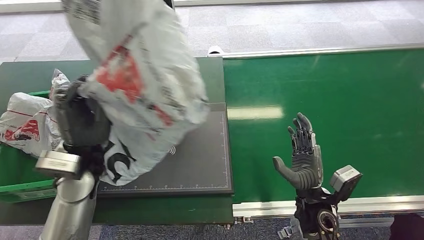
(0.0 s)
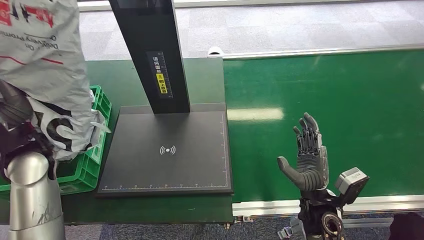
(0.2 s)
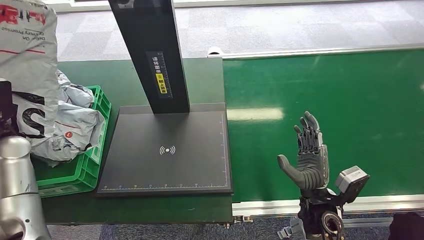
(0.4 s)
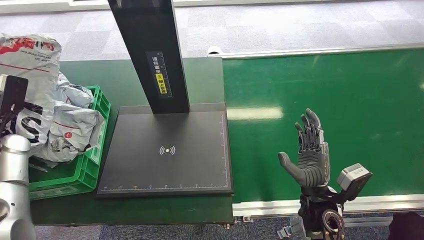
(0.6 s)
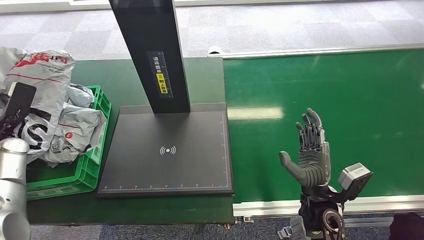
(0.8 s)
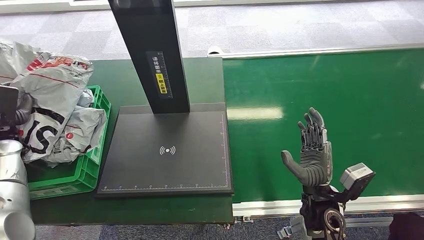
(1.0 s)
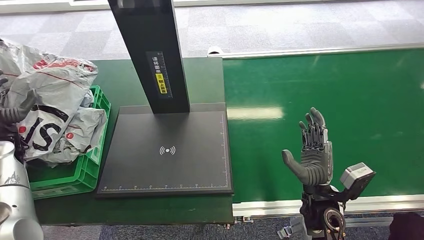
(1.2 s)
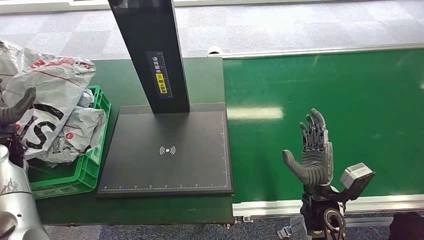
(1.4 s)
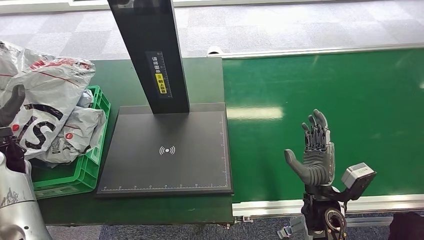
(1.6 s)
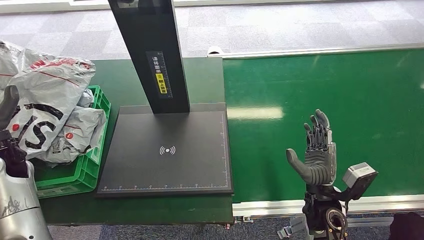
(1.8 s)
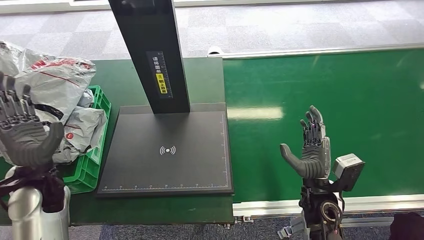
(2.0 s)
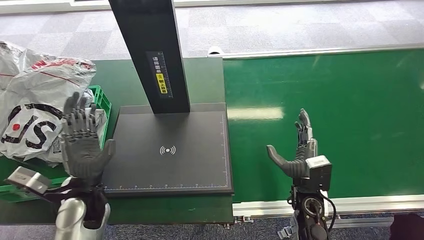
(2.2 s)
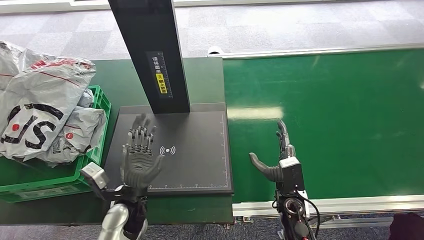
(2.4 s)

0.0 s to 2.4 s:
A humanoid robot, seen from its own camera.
Task of the whole recording: Weigh the package on the weighing device and place it in the left basket.
Step, 0.6 to 2.4 s: Place the package into the parcel locker.
1.2 to 2.4 s: The left hand shifts about 35 cm to the right. Meanwhile the right hand shifts roughly 5 cm downward.

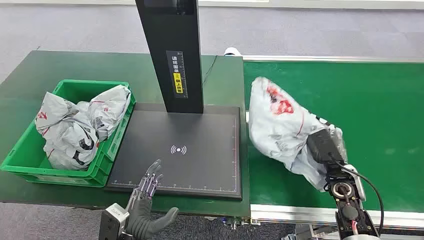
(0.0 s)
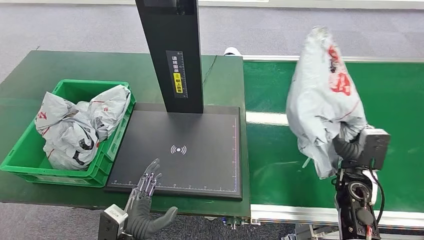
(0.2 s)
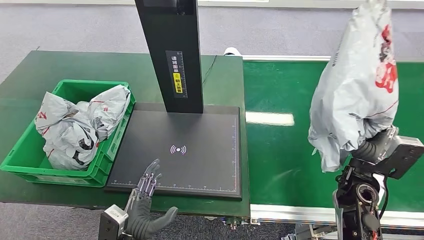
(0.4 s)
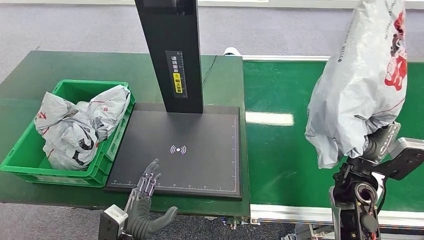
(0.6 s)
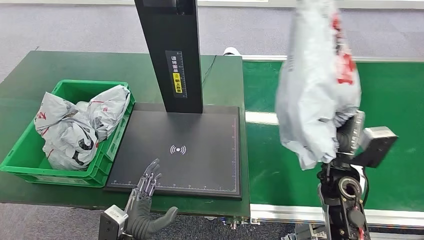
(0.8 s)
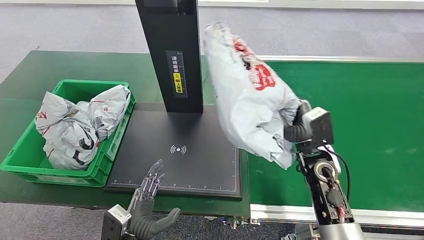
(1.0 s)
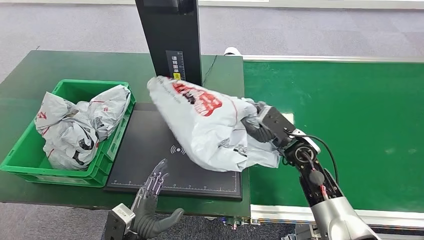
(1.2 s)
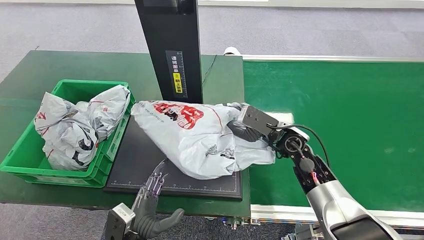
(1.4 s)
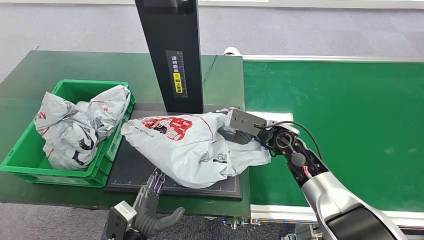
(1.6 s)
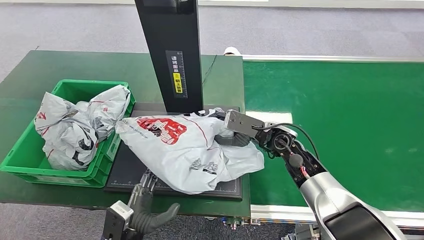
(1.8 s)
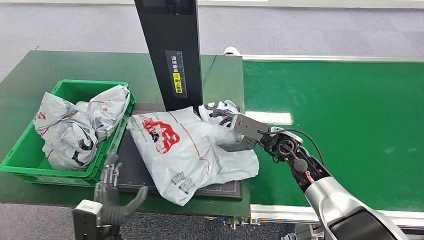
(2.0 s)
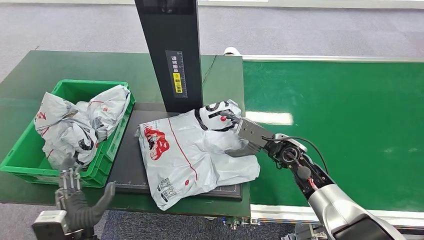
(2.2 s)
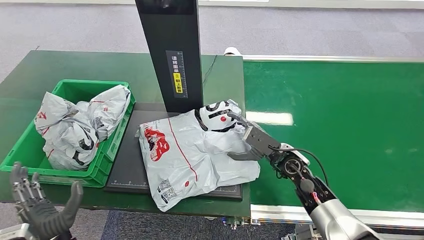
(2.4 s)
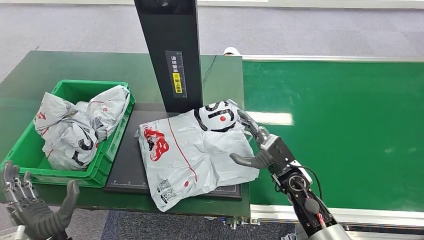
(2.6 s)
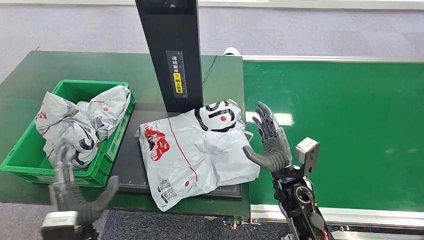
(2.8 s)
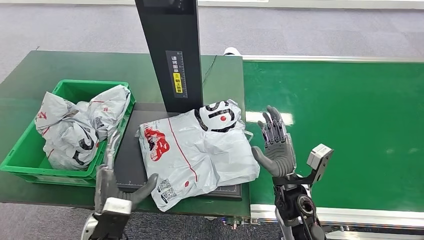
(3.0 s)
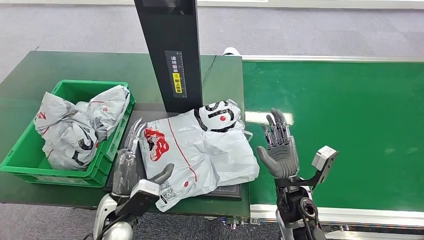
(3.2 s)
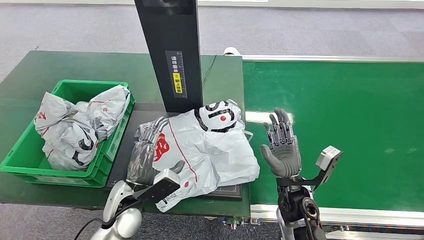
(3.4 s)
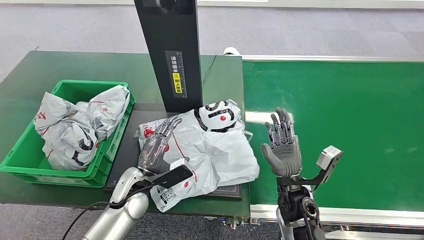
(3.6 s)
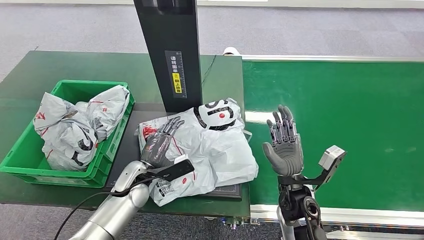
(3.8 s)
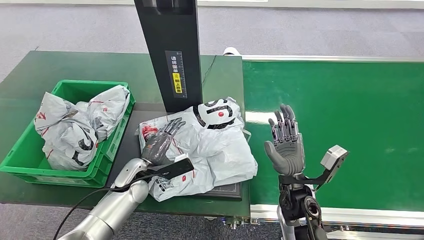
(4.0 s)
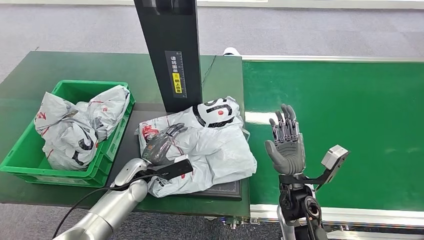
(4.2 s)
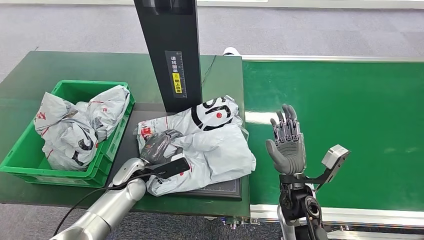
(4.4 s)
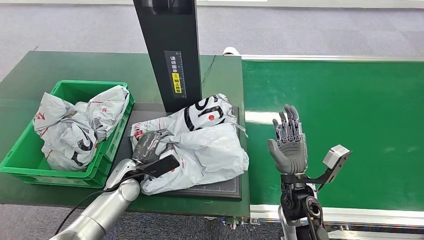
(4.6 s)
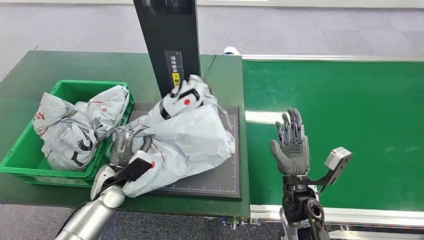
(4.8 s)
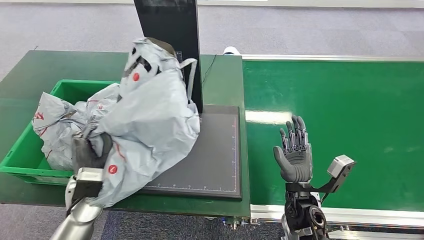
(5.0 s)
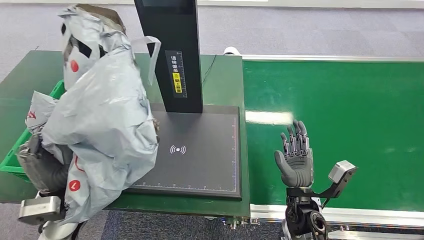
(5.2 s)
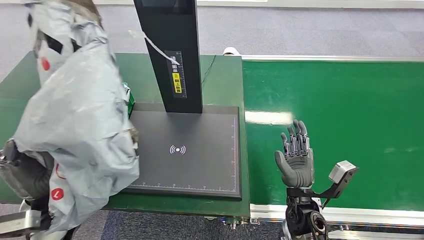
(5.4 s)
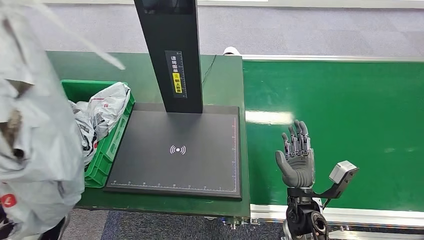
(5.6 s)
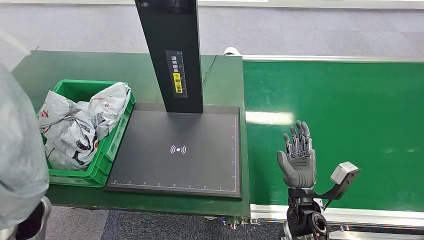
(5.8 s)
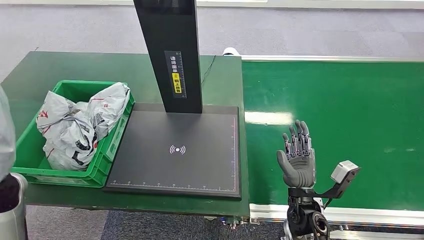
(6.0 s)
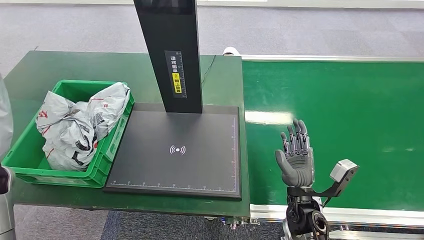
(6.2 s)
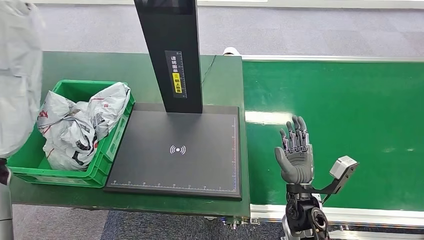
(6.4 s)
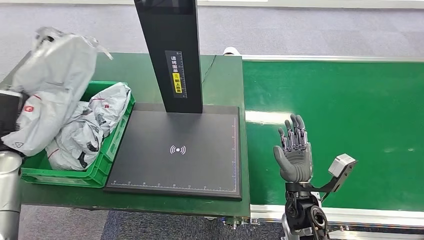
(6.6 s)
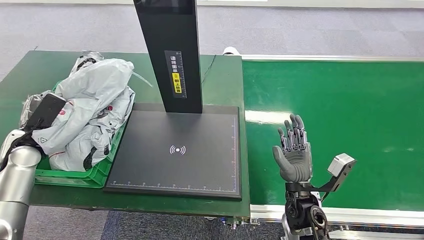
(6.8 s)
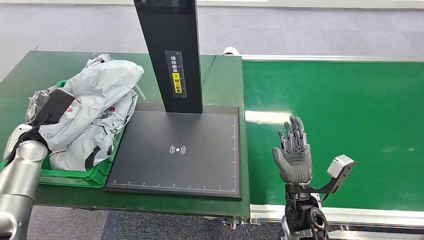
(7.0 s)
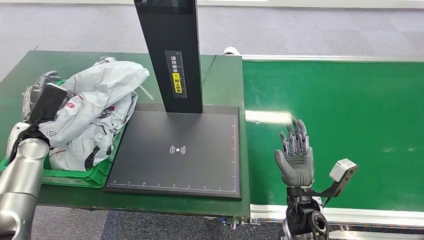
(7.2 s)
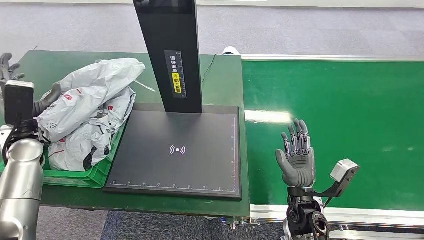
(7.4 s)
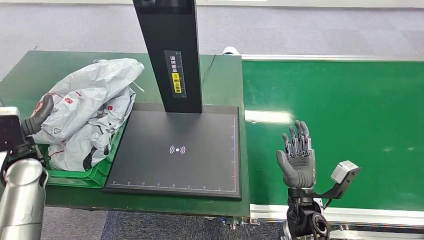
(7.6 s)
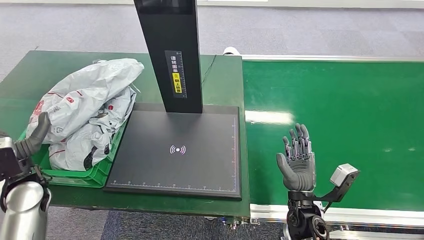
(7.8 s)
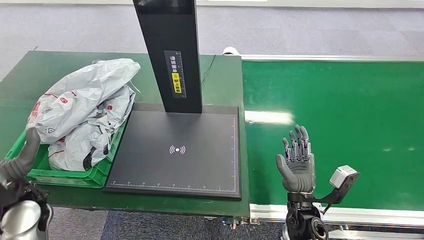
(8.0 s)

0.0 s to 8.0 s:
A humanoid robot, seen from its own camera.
Task of the whole recording: Weigh the package on the weighing device and place it in the left basket.
Step, 2.8 to 3.0 s: Place the package onto the inbound machine.
Step, 5.2 to 5.4 s: Pick up the package from the inbound machine.
1.6 to 3.2 s: The right hand moves backward and downward, approximately 15 cm. Meanwhile the left hand shifts about 10 cm forward and upward, and goes to the left and returns, roughly 10 cm each way.
3.2 to 4.8 s: The left hand heads forward and to the left, covering roughly 10 cm.
6.4 to 8.0 s: The left hand heads to the right, backward and downward, covering about 15 cm.
